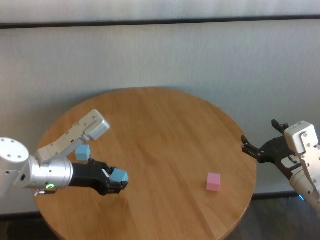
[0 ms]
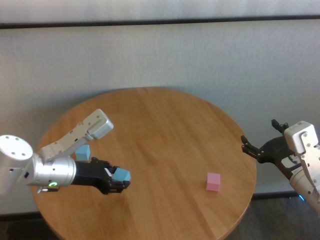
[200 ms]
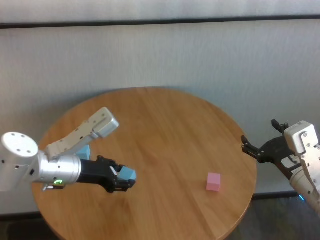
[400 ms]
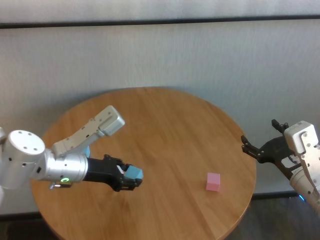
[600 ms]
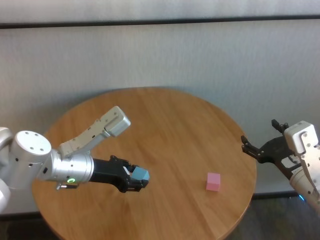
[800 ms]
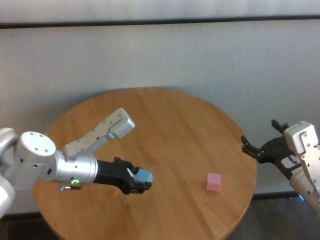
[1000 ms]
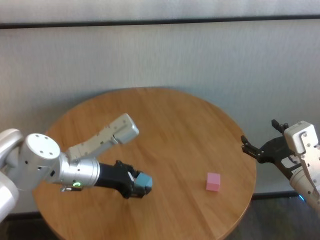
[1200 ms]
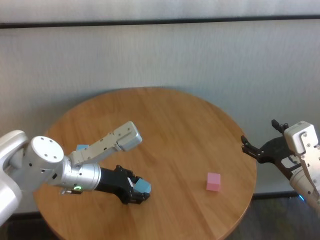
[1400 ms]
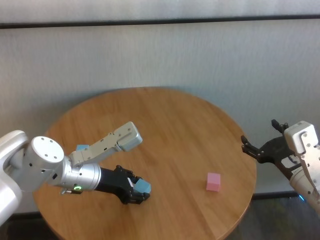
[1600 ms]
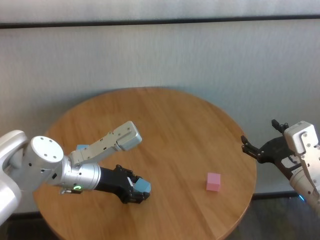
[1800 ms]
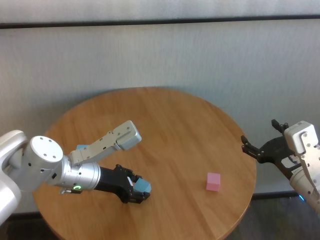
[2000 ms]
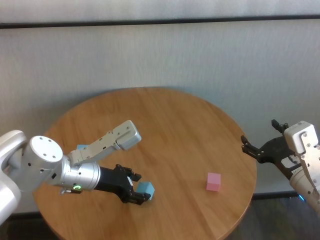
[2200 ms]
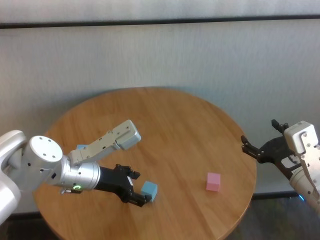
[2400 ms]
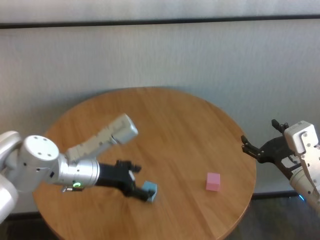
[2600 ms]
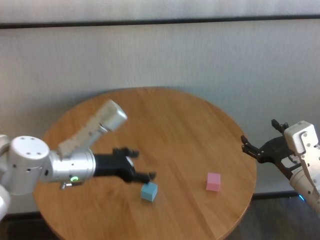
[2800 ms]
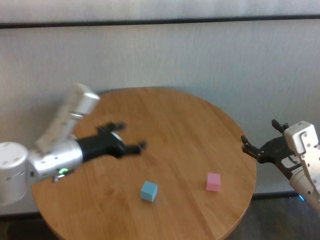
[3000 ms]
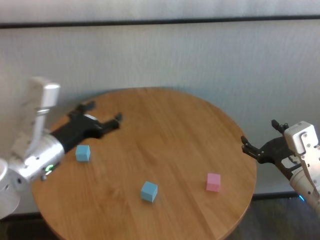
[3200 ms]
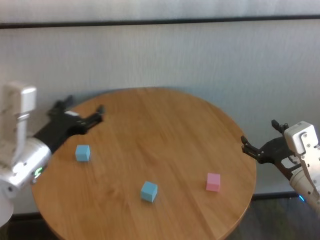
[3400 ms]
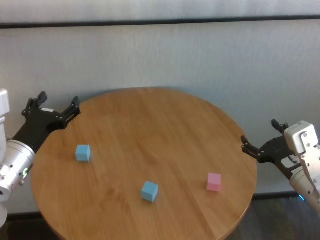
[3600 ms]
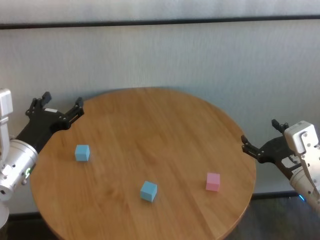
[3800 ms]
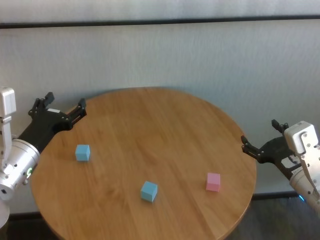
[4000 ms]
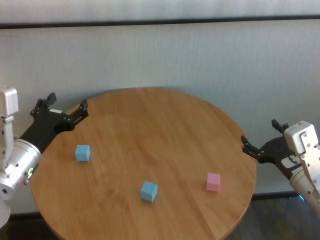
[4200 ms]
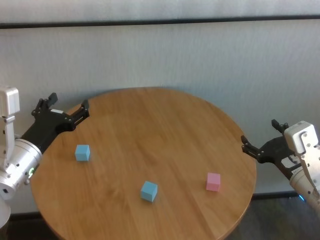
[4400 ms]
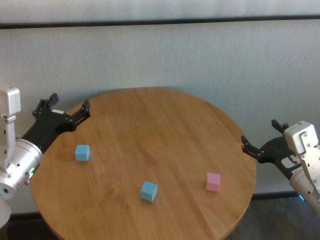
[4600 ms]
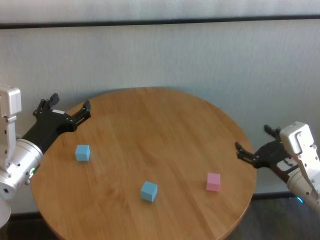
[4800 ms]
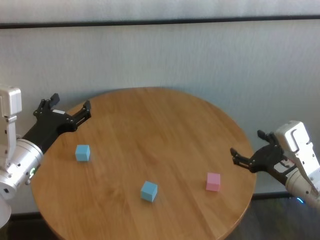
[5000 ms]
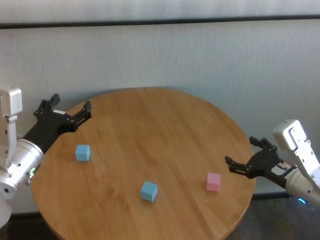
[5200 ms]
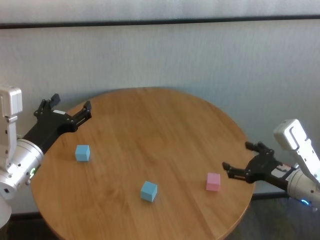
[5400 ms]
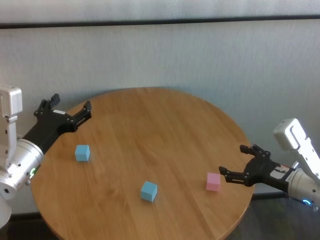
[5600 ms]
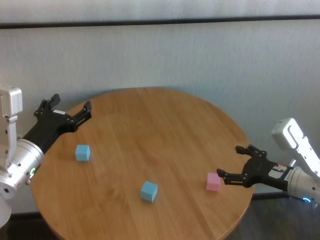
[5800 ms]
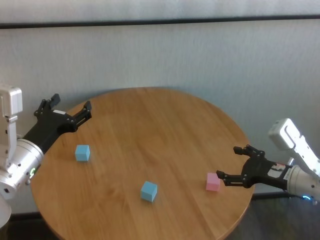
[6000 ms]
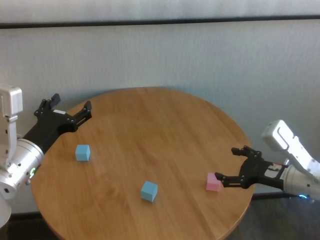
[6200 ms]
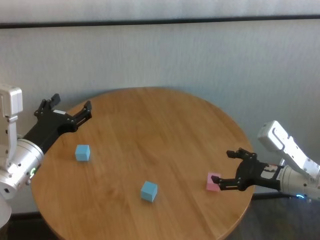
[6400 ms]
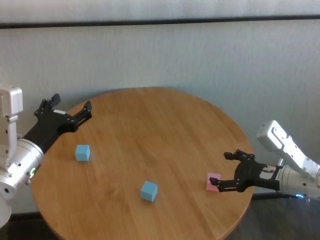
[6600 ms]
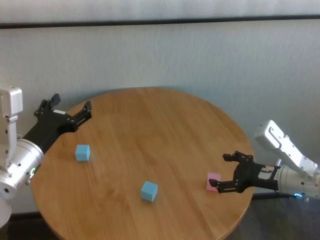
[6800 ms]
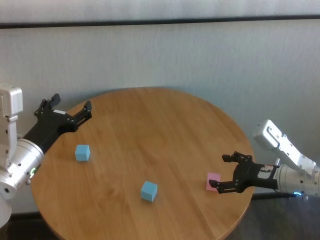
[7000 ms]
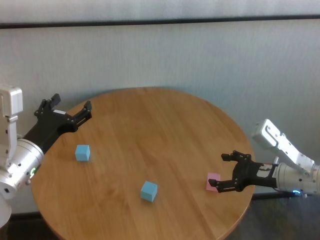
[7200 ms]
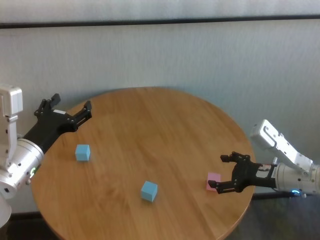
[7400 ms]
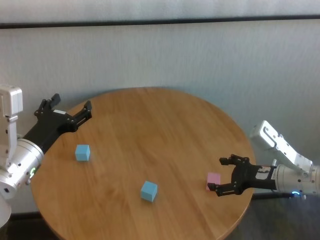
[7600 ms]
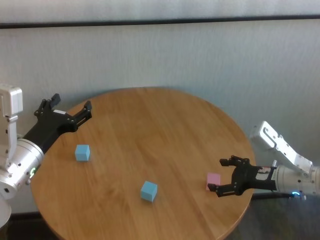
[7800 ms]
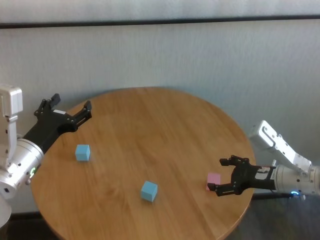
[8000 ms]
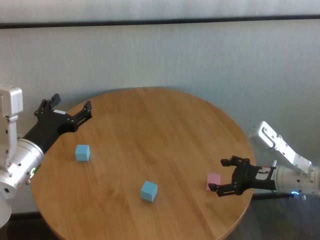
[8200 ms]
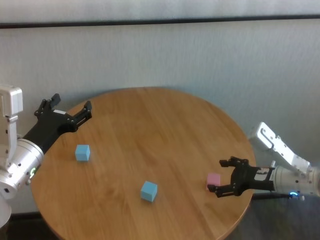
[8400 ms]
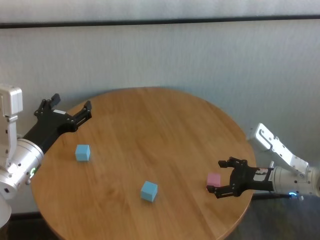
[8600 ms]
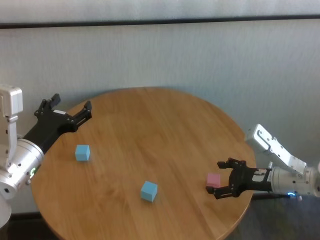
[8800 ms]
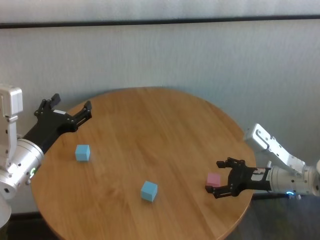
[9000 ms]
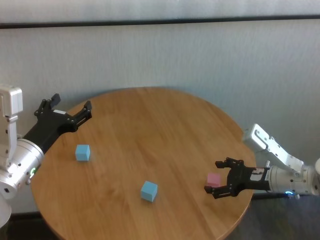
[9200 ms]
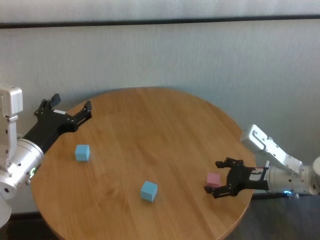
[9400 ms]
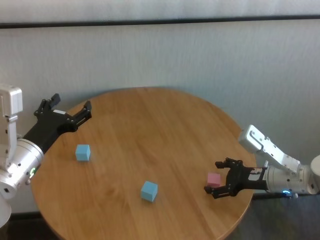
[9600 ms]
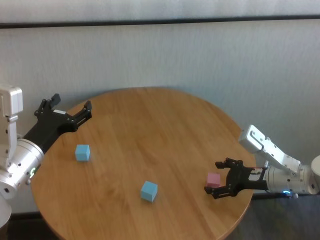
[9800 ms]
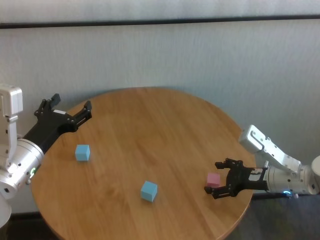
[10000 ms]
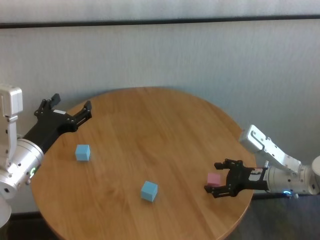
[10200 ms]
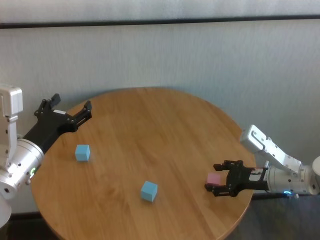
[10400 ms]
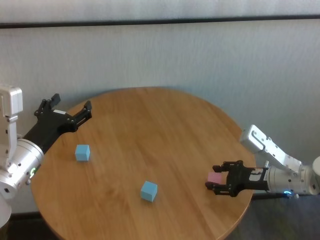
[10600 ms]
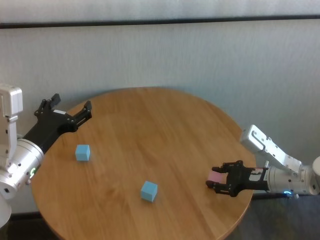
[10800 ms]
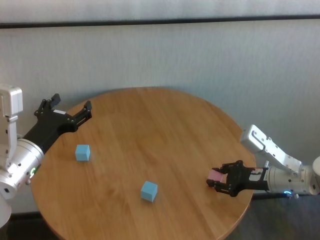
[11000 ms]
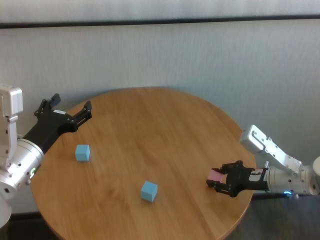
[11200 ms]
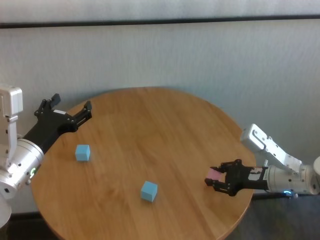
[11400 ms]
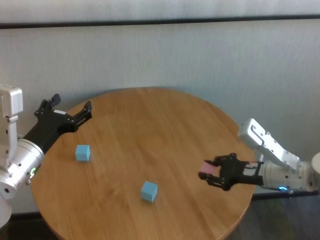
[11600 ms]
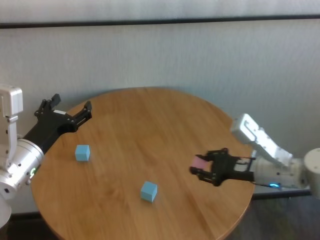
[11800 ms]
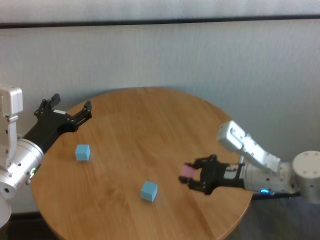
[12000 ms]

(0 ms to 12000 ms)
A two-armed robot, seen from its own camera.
Task of the whole recording: stack building blocks on the table.
Step, 0 ms - 10800 ms: Grasp the pink building block with right gripper.

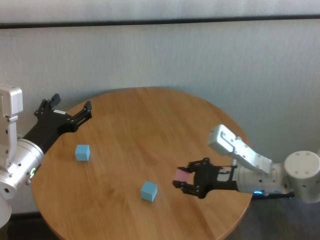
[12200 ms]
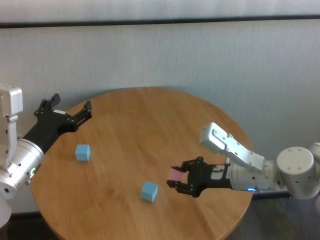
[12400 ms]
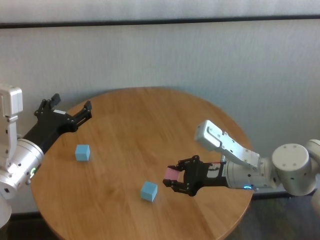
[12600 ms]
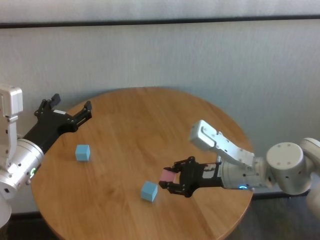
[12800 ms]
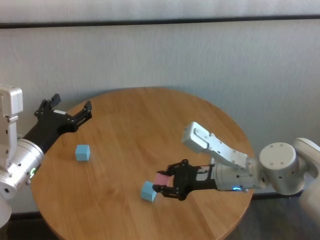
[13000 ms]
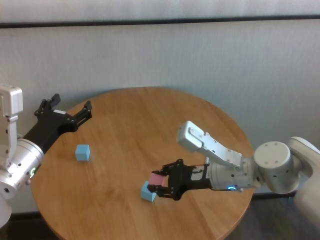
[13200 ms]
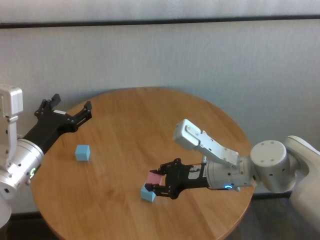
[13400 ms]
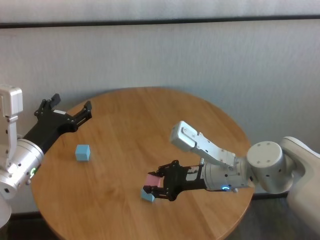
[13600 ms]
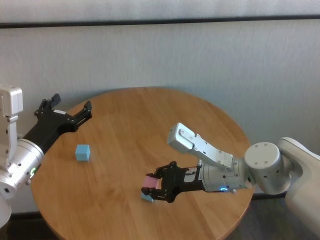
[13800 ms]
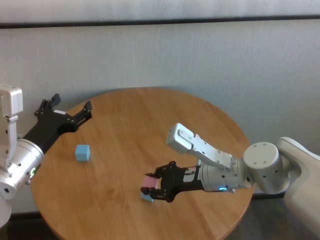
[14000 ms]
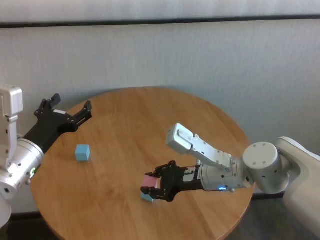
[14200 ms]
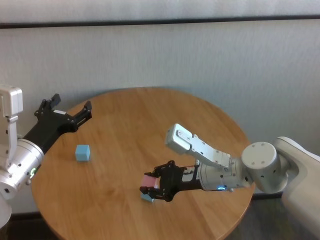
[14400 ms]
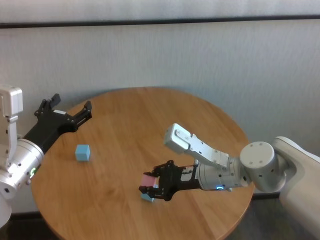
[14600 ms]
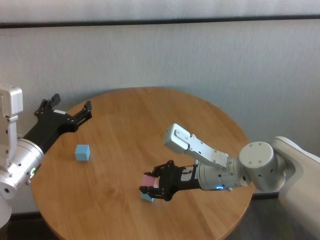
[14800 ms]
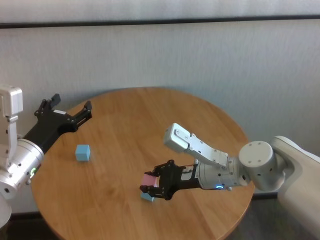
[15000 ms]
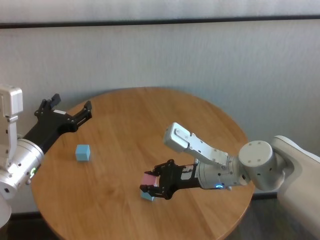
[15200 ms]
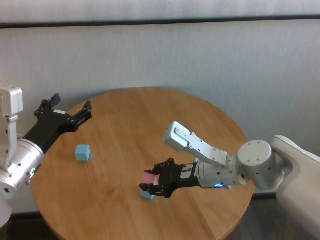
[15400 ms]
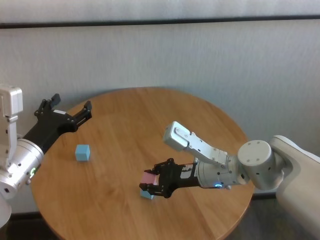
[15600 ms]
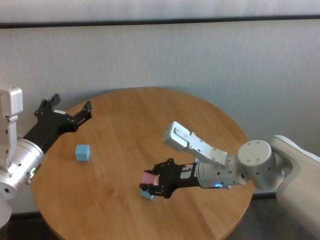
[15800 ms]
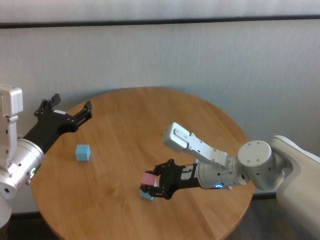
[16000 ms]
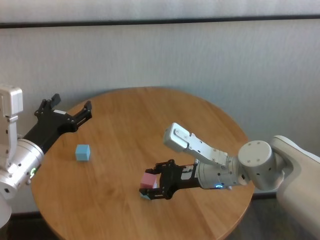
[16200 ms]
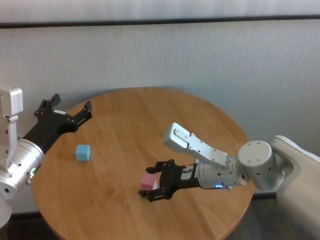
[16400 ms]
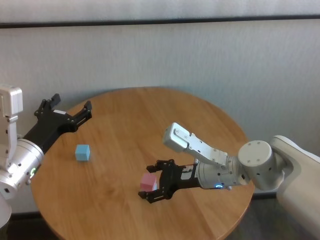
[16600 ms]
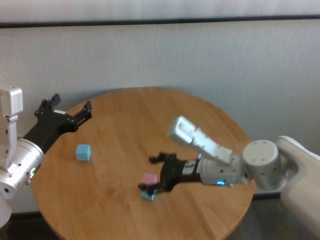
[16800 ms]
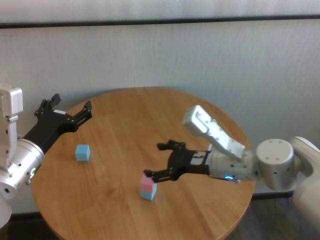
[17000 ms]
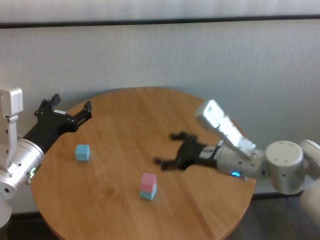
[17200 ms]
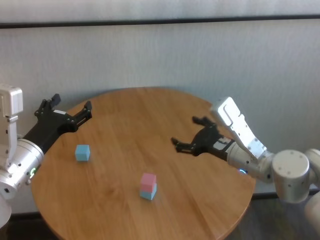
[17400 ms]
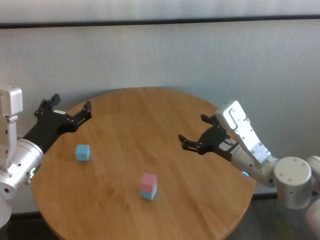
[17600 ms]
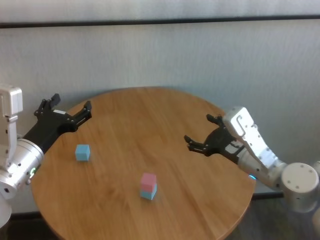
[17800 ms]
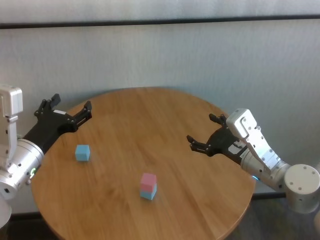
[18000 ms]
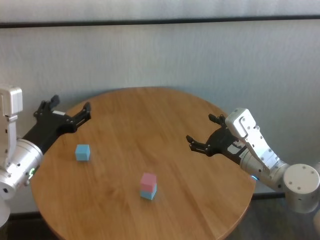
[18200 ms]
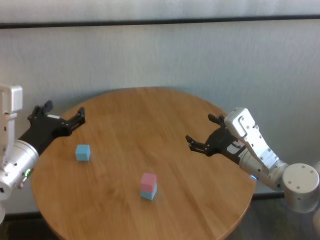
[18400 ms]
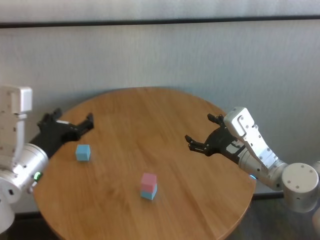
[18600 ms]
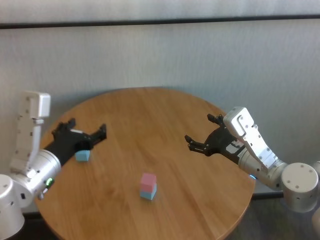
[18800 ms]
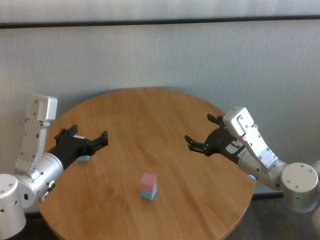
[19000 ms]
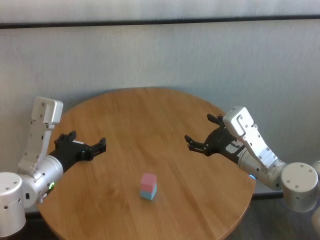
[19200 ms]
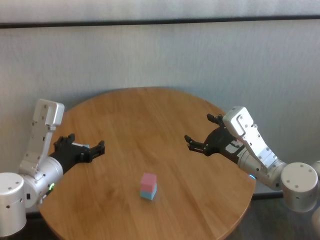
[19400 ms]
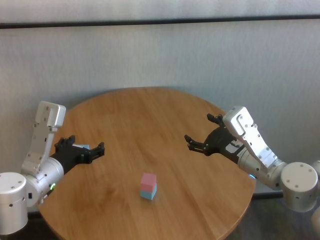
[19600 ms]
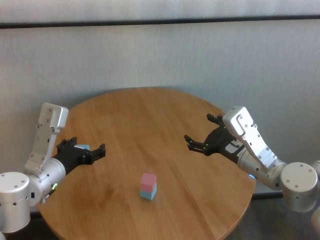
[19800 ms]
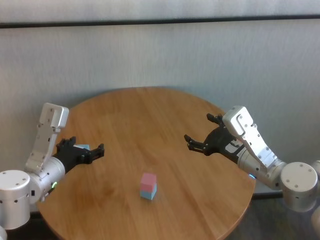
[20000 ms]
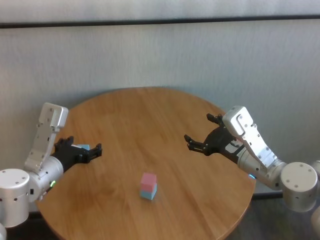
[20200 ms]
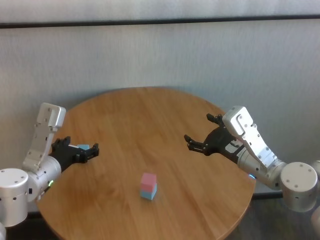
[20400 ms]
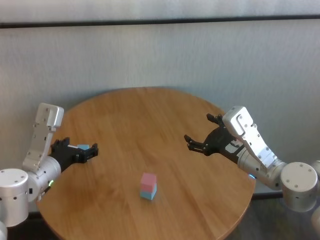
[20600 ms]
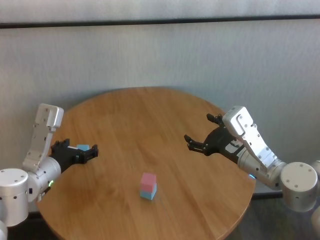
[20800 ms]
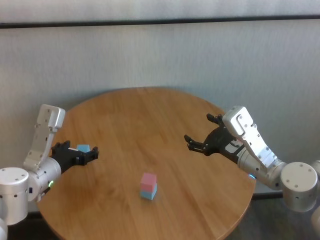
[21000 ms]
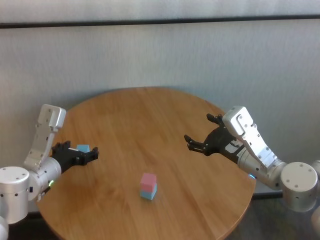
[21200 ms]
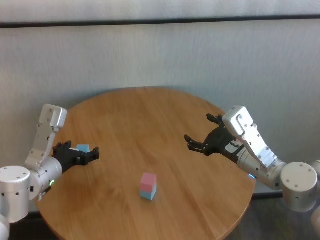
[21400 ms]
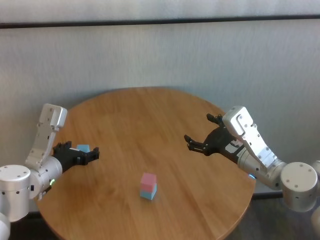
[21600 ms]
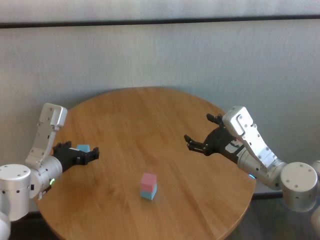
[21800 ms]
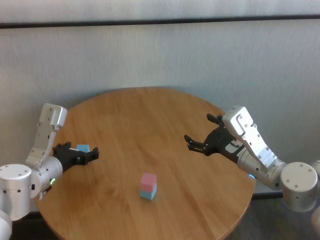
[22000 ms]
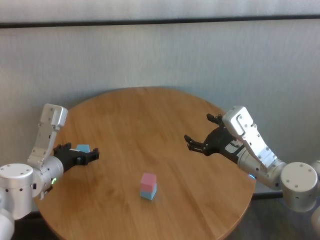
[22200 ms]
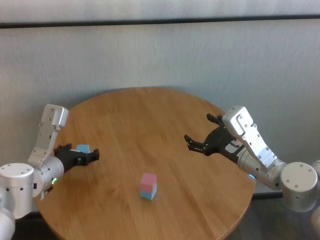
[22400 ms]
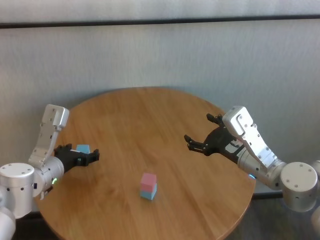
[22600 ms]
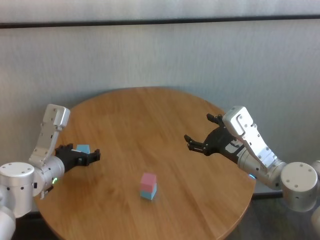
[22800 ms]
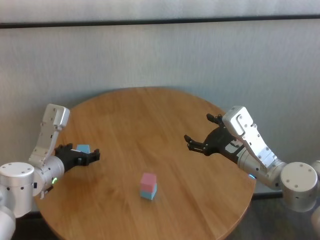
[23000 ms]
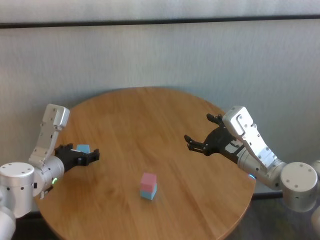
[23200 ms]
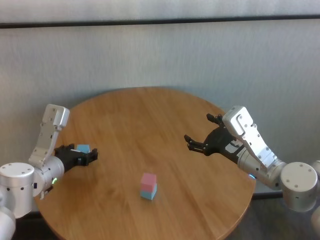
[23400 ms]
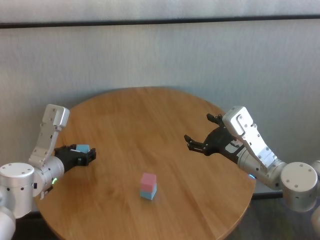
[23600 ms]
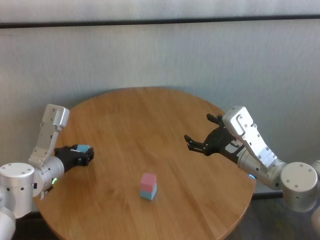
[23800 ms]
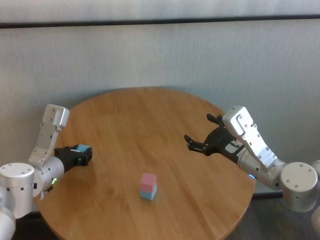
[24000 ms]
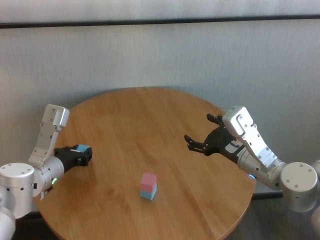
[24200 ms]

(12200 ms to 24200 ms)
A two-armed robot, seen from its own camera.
Task of the whole recording: stack building blocks on the table.
Step, 12200 ms - 16600 ms: Place the pink block on the blue block with right gripper.
Step, 16800 ms - 23600 ms: Grasp the green building block with left gripper.
